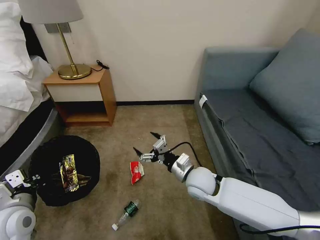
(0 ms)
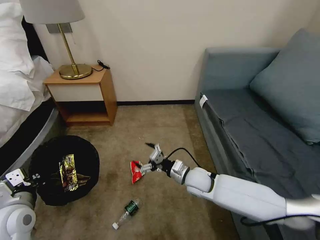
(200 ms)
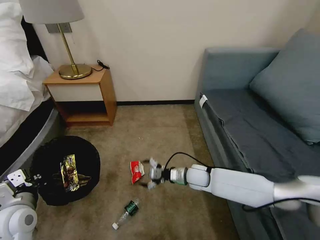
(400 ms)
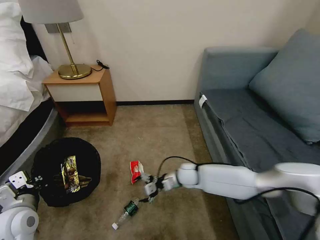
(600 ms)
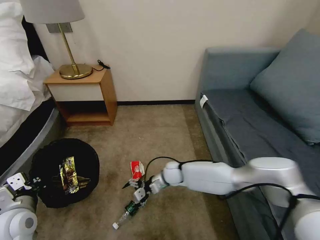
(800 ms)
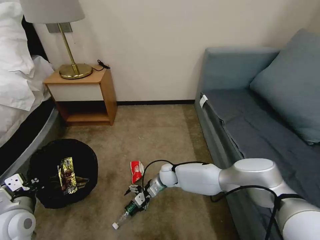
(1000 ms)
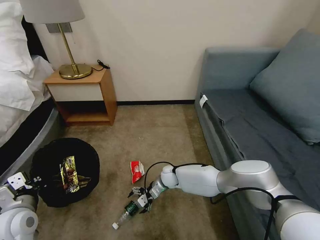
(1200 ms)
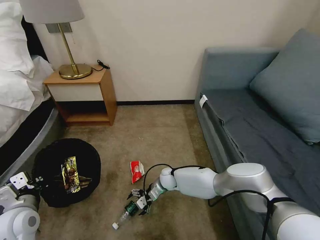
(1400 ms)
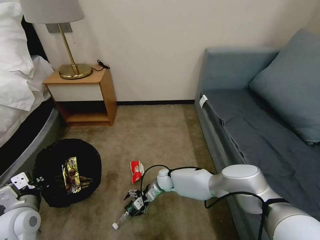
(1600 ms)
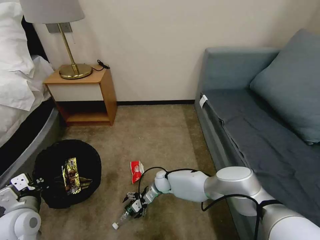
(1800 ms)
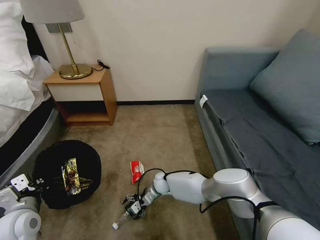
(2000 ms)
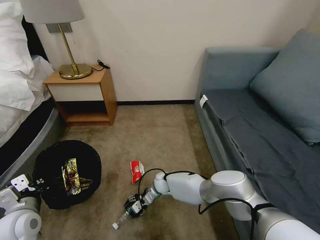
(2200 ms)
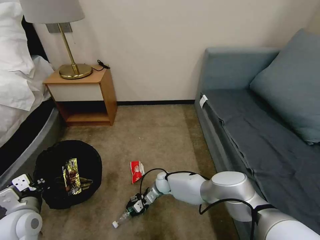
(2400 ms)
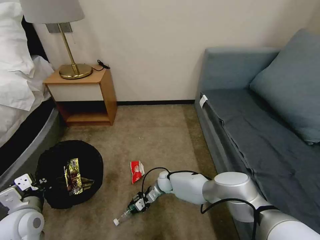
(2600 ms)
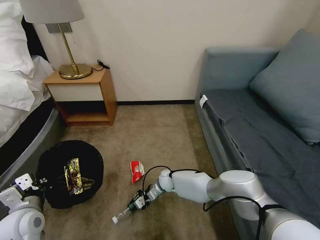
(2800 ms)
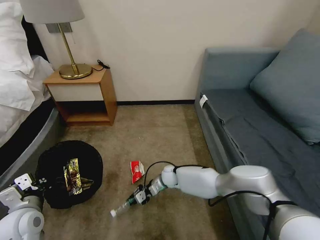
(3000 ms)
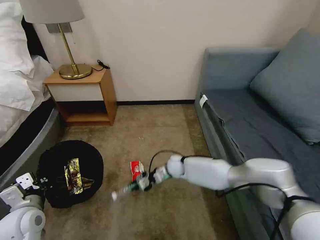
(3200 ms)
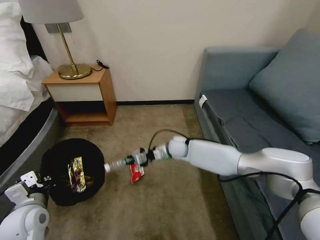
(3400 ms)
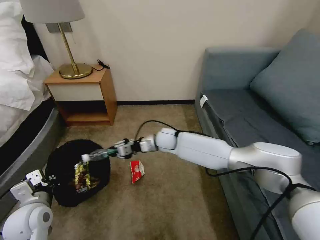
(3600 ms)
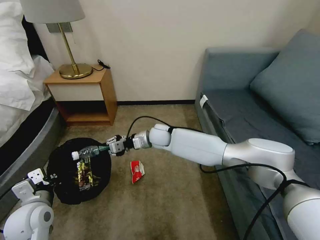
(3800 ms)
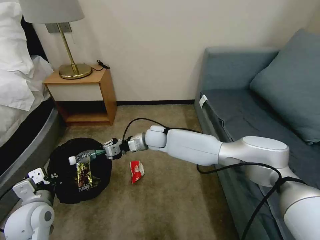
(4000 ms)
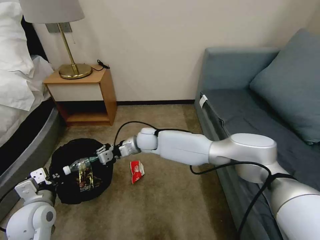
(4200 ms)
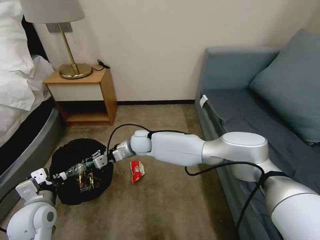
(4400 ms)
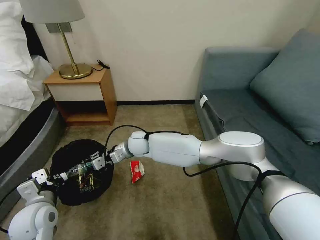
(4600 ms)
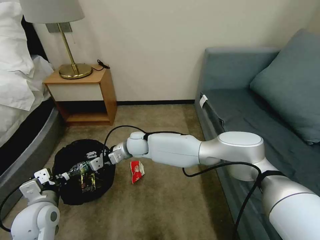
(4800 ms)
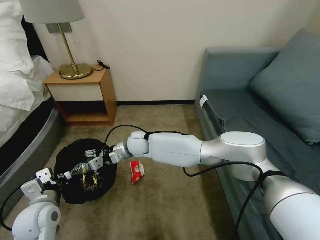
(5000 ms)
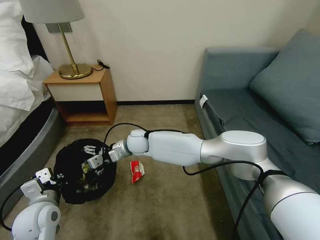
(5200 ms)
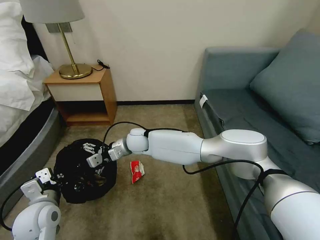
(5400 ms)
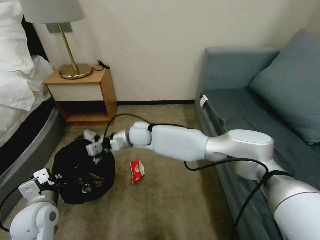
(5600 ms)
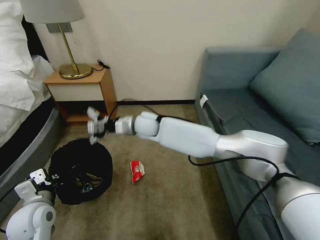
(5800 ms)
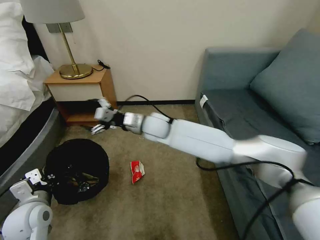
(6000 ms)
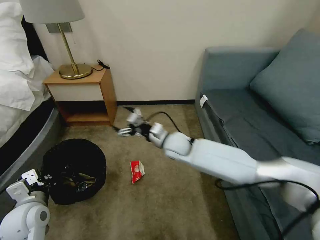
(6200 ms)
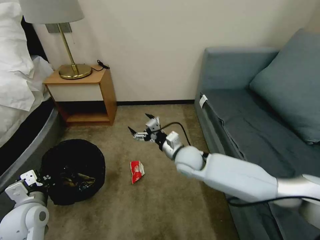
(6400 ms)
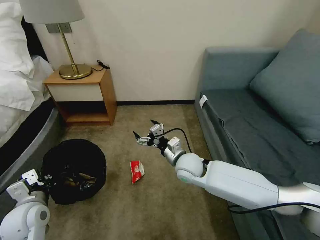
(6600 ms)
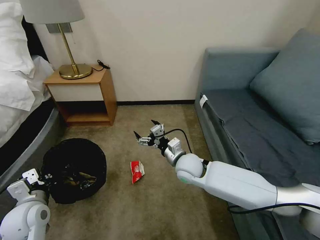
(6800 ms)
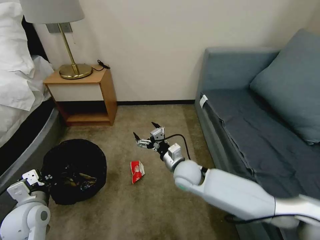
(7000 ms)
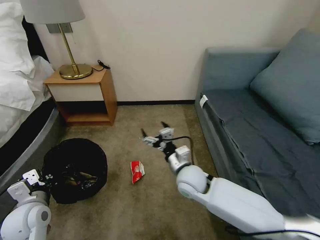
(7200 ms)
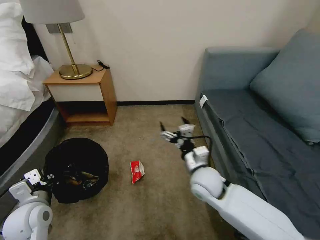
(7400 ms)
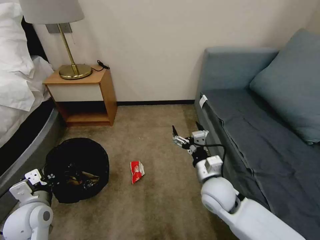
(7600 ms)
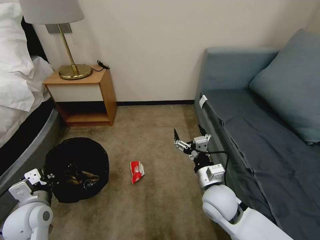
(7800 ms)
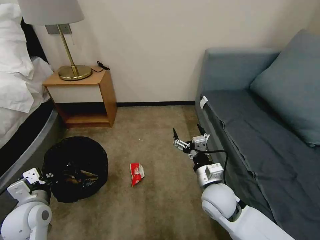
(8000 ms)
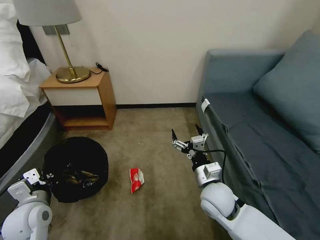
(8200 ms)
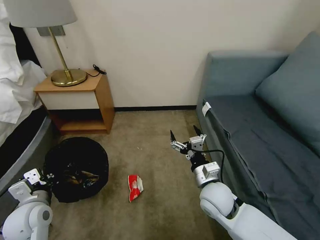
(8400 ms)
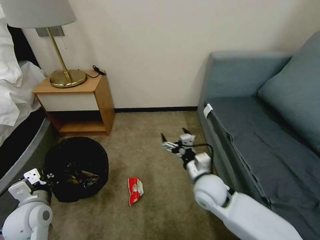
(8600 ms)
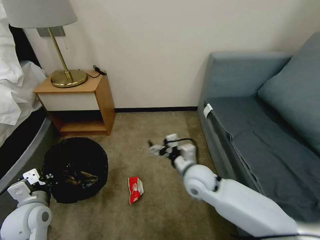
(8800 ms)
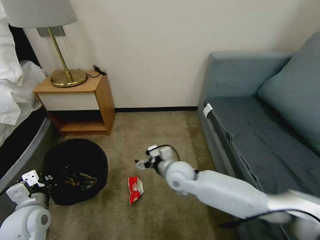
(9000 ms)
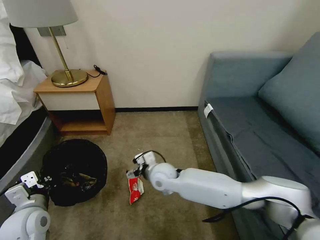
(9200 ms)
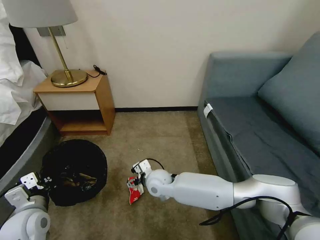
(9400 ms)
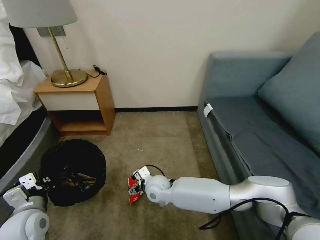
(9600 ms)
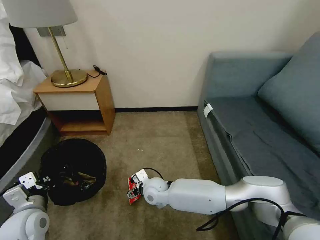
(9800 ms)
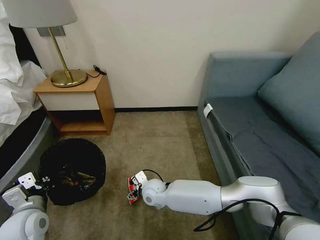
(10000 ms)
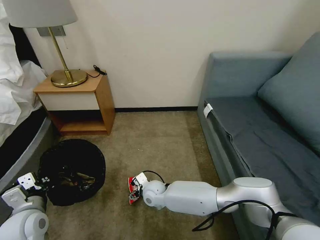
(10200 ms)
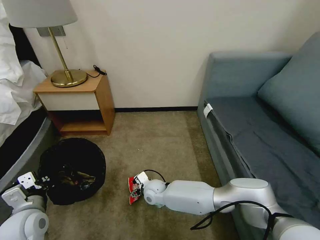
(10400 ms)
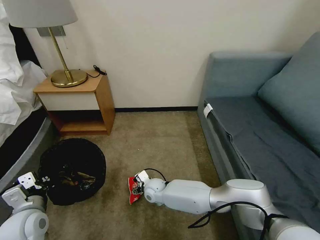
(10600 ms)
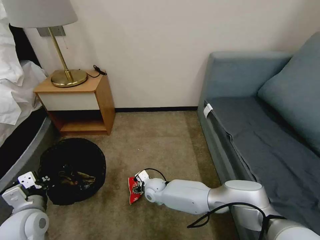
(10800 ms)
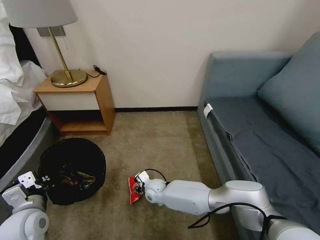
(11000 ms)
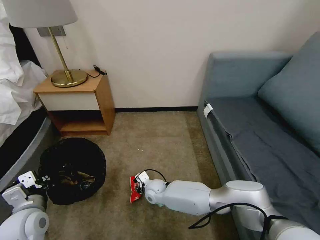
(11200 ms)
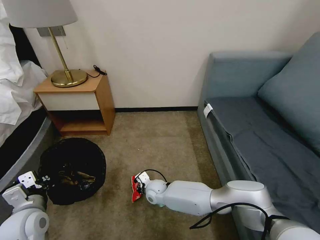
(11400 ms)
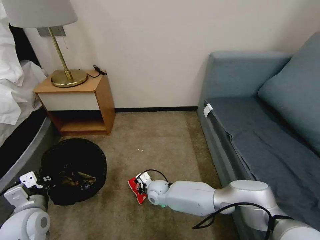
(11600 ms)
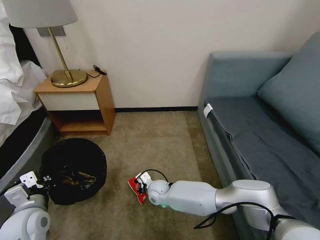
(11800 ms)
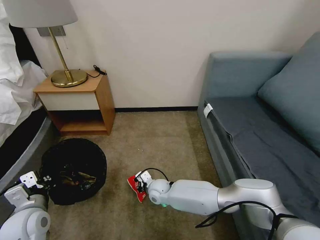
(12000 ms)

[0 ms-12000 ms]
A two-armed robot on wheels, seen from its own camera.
Task of the whole recording: Pick up the trash bin, then pick up the garbage on the floor and place it into the trash bin.
0 ms to 1600 ms: The right gripper is displaced downward, forward and to the left by roughly 25 cm.
1600 ms to 3000 ms: The right gripper closes its fingers.
3000 ms to 4400 ms: The right gripper heads upward and to the left, covering about 25 cm.
4400 ms to 6000 ms: The right gripper goes some 10 cm upward and to the right, and opens.
6000 ms to 7600 ms: The right gripper heads backward, to the right and downward, covering approximately 25 cm.
7600 ms to 9000 ms: The right gripper is displaced to the left and forward by approximately 10 cm.
9000 ms to 10400 ms: The right gripper is displaced downward and to the left by about 20 cm.
10400 ms to 12000 ms: The right gripper closes.

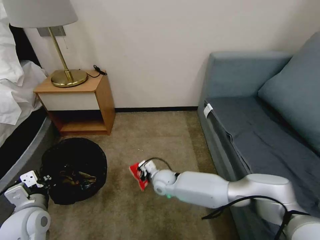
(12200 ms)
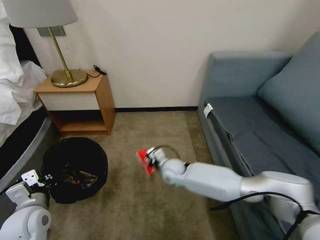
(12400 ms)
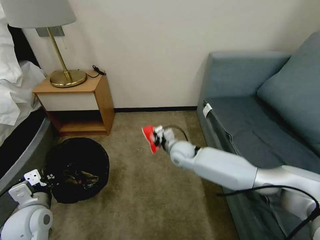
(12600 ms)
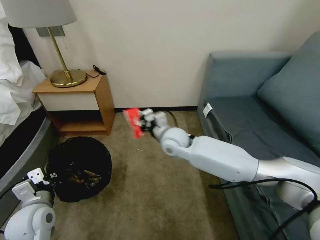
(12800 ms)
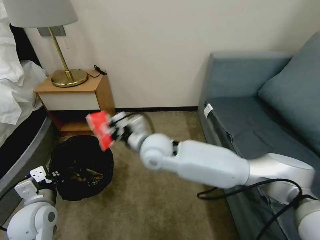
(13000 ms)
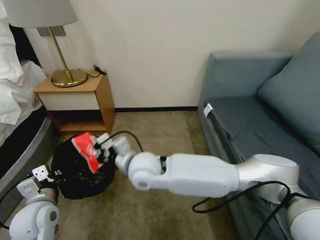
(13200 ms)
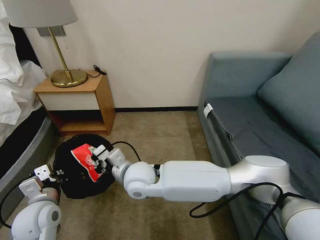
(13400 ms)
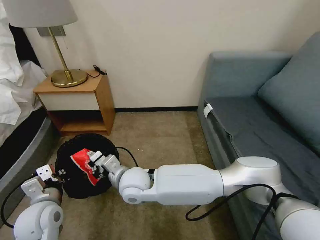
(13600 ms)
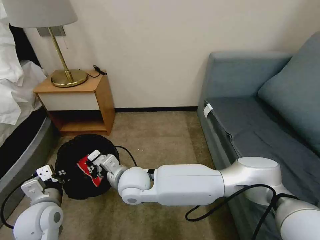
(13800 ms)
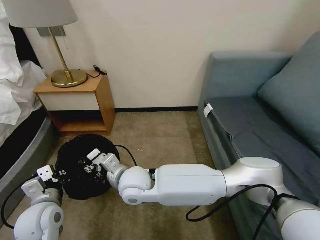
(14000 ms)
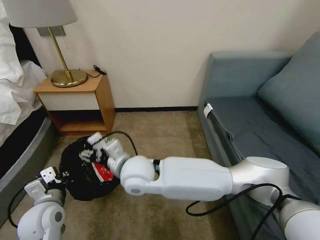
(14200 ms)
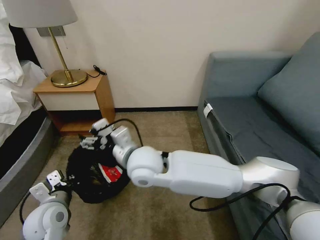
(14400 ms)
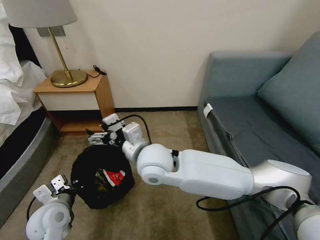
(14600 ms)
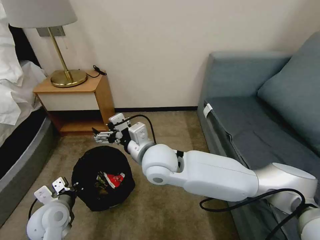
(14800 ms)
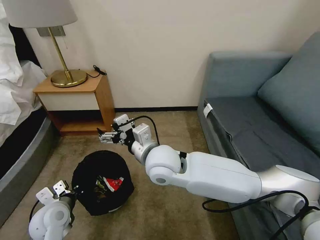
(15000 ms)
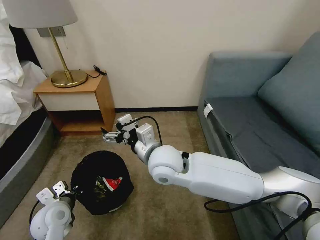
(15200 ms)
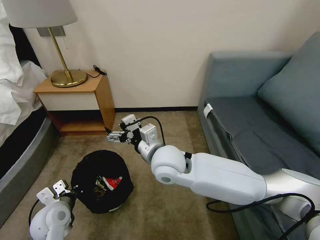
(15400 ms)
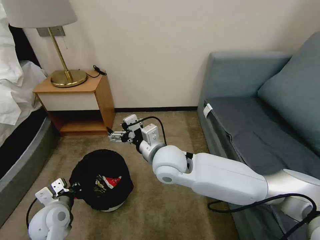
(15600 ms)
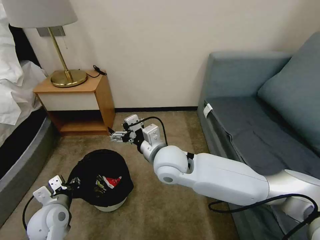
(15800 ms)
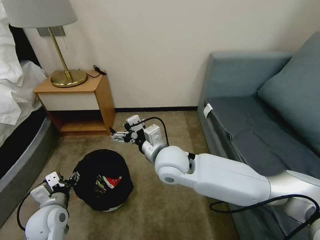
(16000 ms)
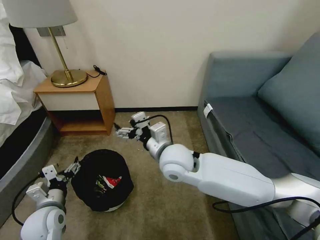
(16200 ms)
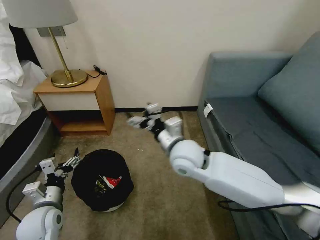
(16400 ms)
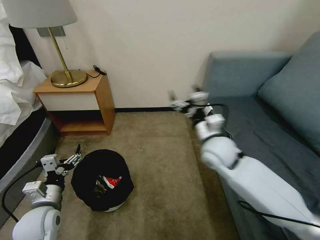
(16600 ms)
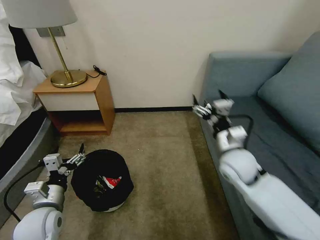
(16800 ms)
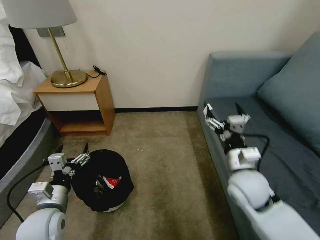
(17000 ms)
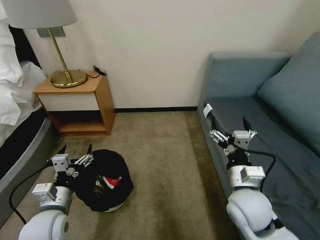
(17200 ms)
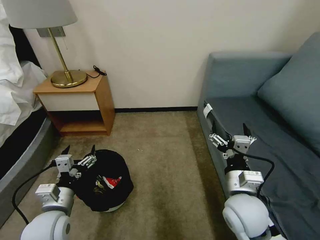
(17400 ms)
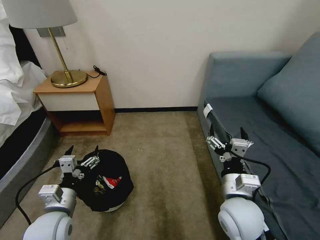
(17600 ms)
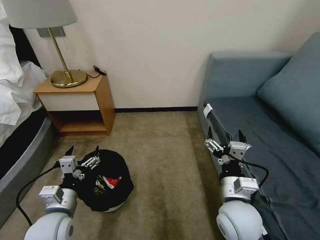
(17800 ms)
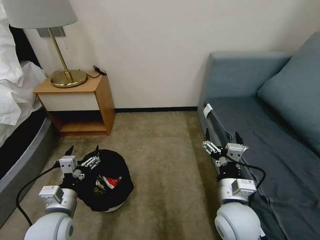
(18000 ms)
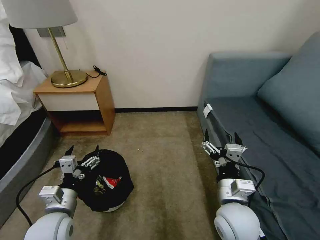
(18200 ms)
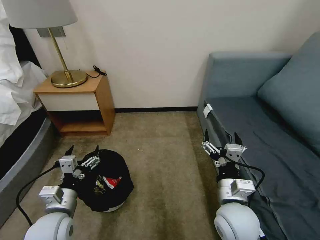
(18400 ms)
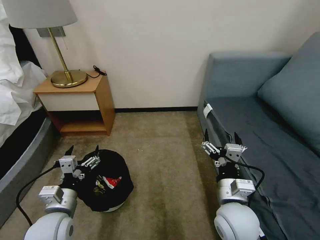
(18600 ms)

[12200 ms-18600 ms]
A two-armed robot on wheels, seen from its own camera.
Task of the whole recording: Pick up the trash bin, then pick up the garbage on the floor and place it into the trash bin.
12200 ms to 13800 ms: The right gripper goes some 20 cm upward, to the left and backward.
13800 ms to 15400 ms: The left gripper heads downward, covering roughly 5 cm. The right gripper moves to the right and upward, about 10 cm, and opens its fingers.
15400 ms to 17000 ms: The right gripper shifts approximately 20 cm to the right. Meanwhile the left gripper ends up approximately 5 cm from where it was, and opens.
17000 ms to 18600 ms: The right gripper is displaced backward and to the left by roughly 10 cm.

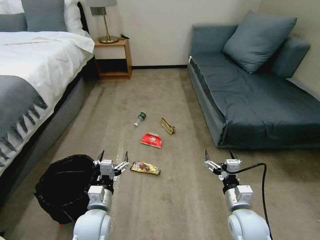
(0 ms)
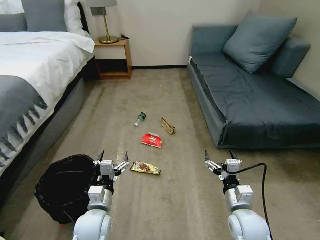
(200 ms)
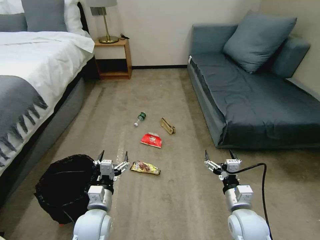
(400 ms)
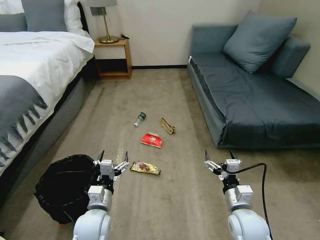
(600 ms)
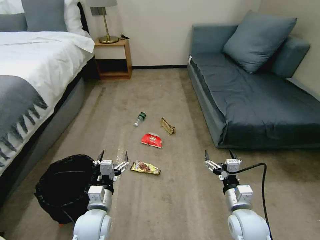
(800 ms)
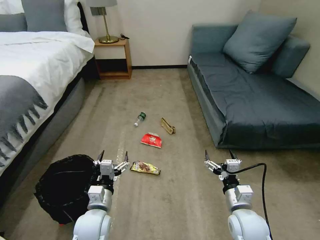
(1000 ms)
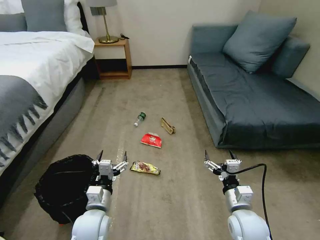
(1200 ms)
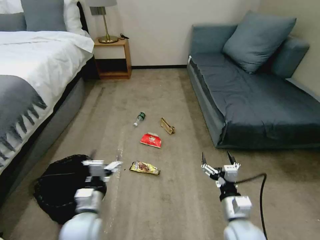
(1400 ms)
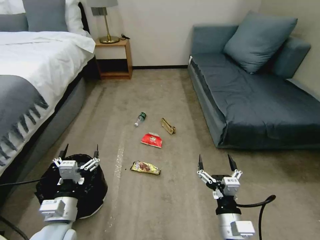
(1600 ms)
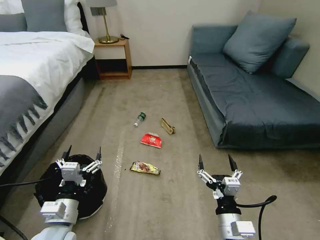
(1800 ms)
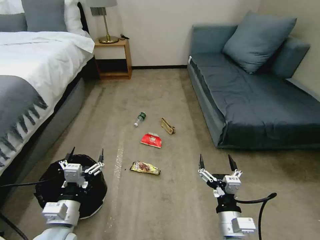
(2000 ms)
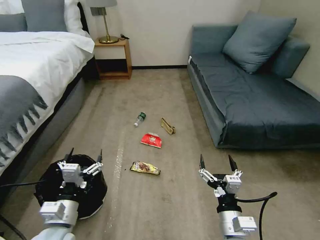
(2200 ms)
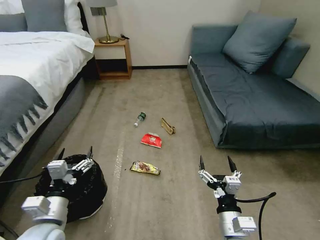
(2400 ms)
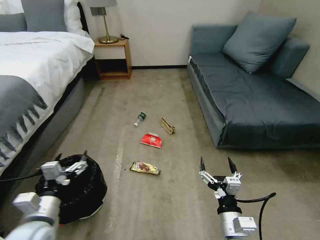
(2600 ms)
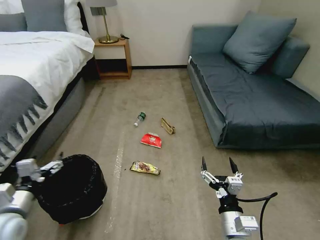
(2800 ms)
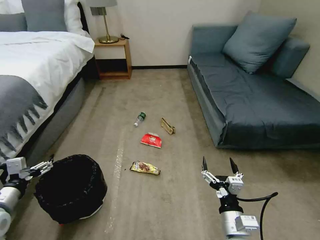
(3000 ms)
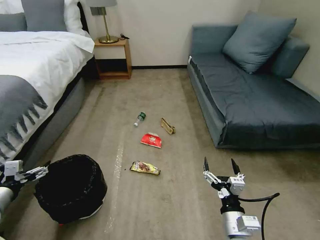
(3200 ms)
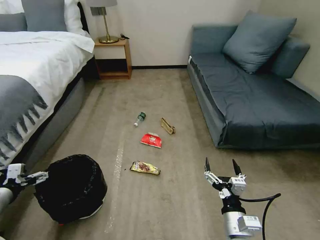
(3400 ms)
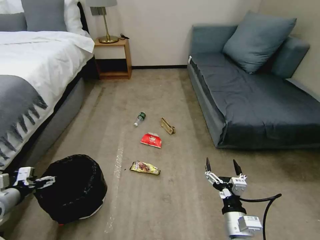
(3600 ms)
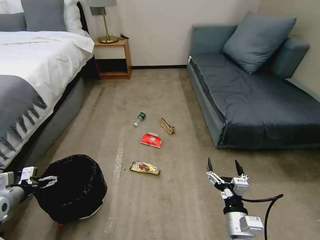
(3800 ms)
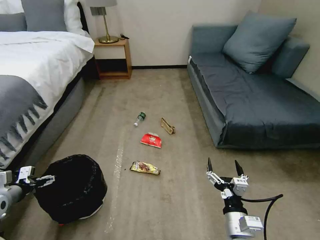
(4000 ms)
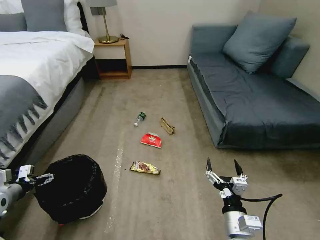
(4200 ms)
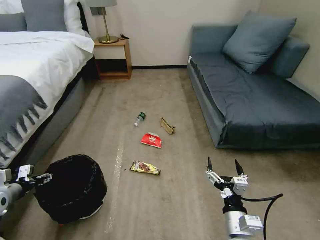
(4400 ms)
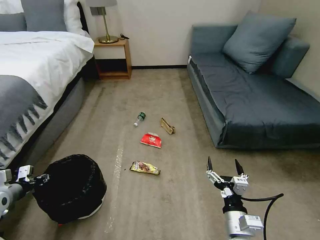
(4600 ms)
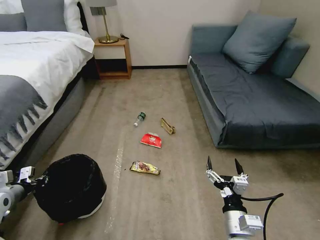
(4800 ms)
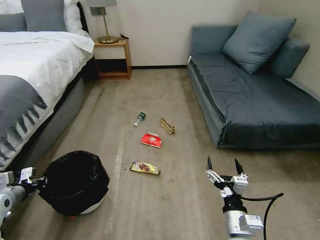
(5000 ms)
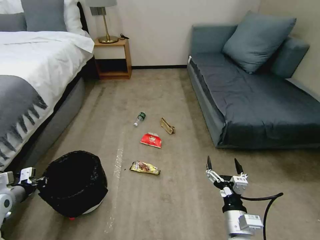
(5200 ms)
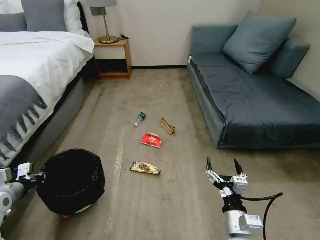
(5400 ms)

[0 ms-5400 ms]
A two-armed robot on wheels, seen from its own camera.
Task of the whole recording: Pick up the trash bin, then pick up the garbage on the floor and place it into the trash bin.
1400 ms to 2800 ms: The left gripper moves to the left, roughly 15 cm.
2800 ms to 4000 ms: The left gripper shifts roughly 15 cm to the left and forward.
4000 ms to 5400 ms: The left gripper closes up.
